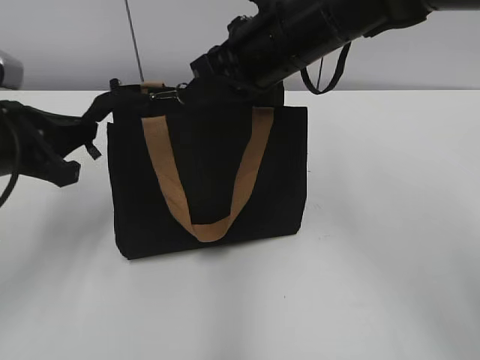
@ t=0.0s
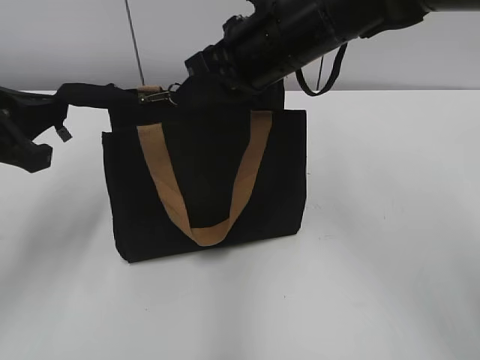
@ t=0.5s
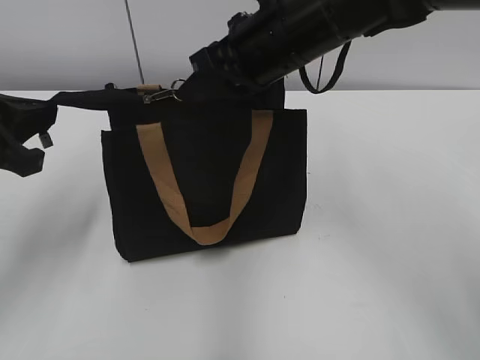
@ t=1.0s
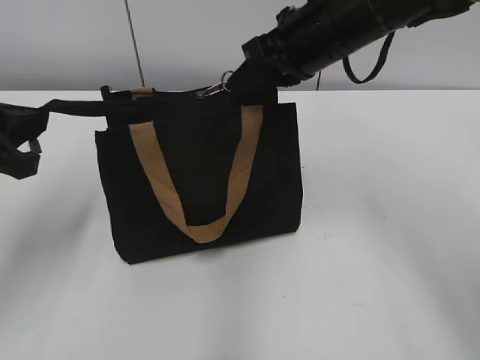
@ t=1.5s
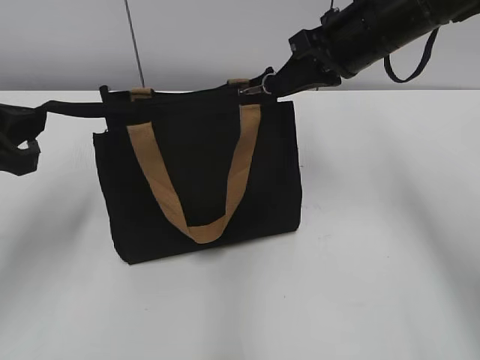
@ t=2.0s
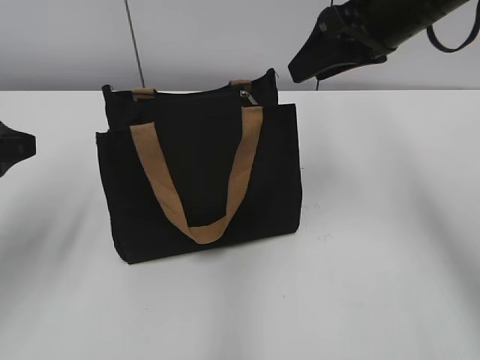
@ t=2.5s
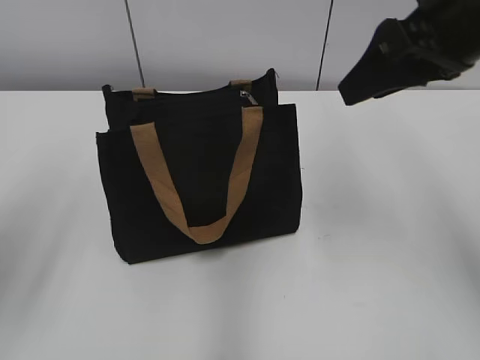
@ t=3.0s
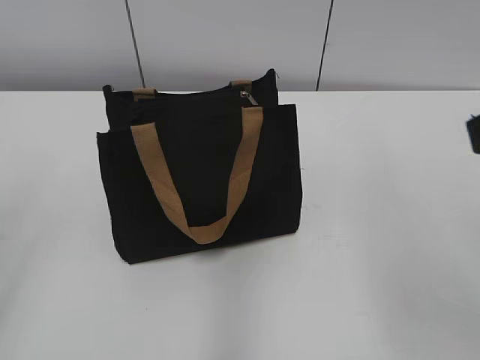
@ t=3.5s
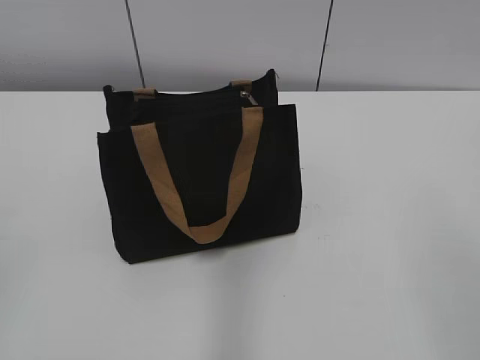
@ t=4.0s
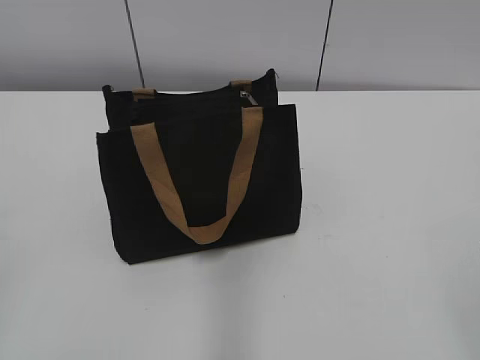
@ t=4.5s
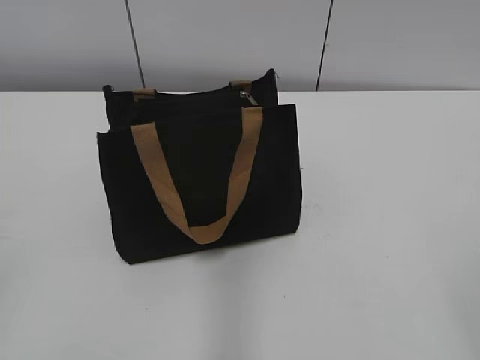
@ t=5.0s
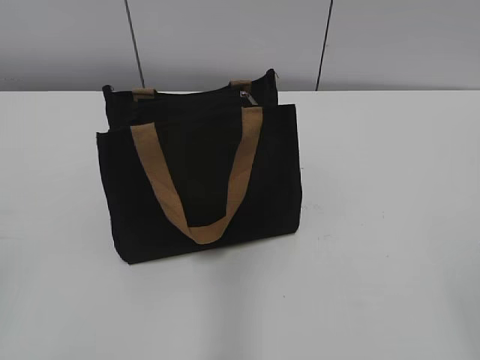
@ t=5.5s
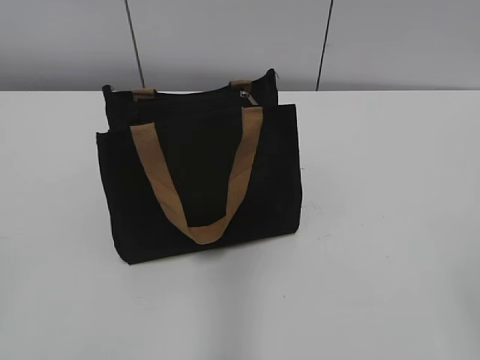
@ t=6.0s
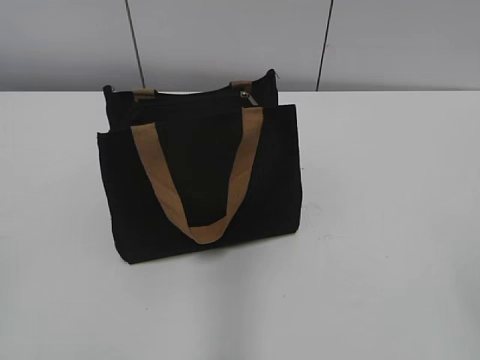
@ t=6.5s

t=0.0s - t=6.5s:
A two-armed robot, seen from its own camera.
Step, t=0.0s - t=2.0s: Zip up the bag with your right hand.
t=0.0s - t=2.0s: The right gripper travels to the right by roughly 10 cm.
t=2.0s - t=4.5s: The right gripper moves backward, roughly 40 cm, and opens its fingers. Meanwhile the left gripper moves backward, approximately 20 cm, and opens.
